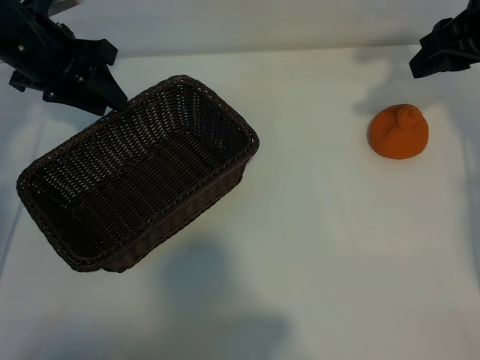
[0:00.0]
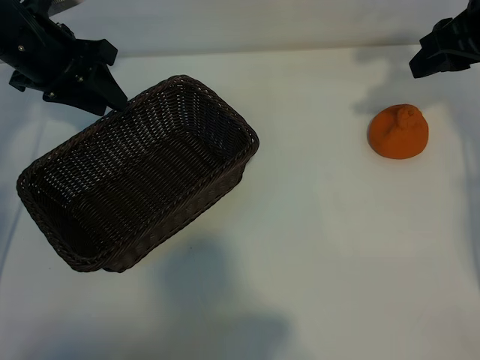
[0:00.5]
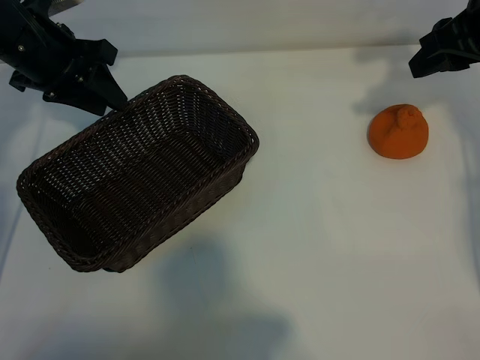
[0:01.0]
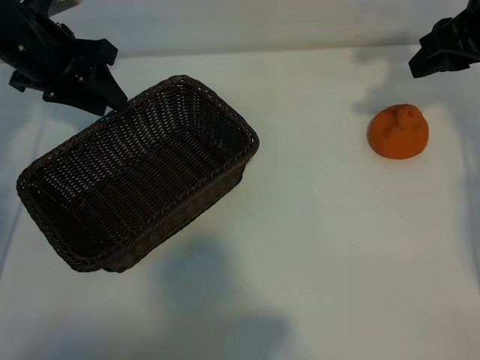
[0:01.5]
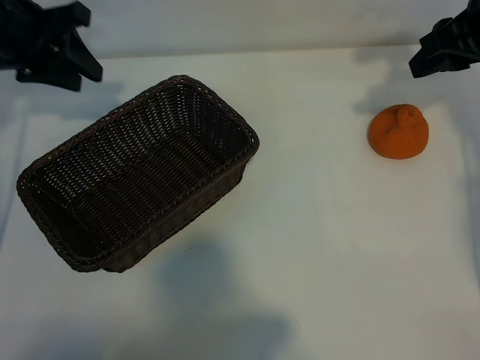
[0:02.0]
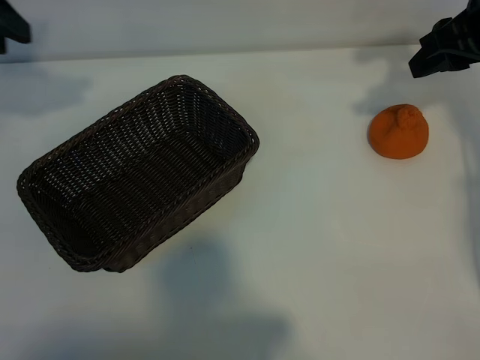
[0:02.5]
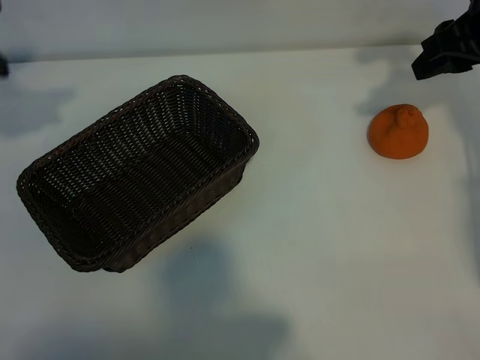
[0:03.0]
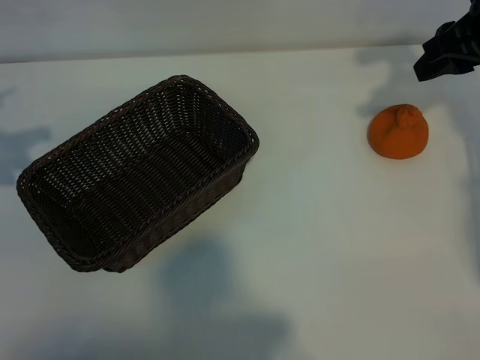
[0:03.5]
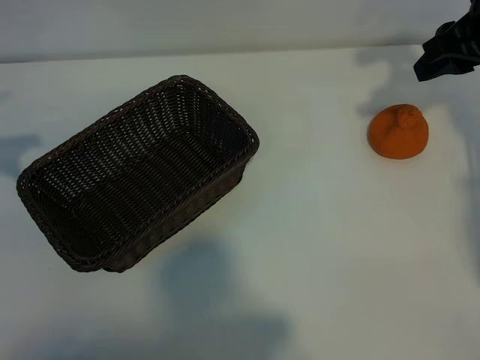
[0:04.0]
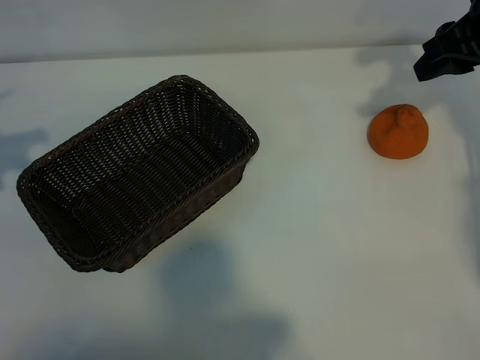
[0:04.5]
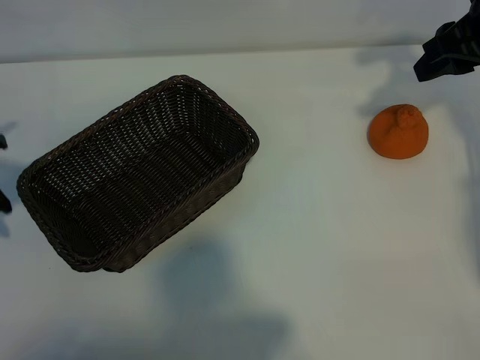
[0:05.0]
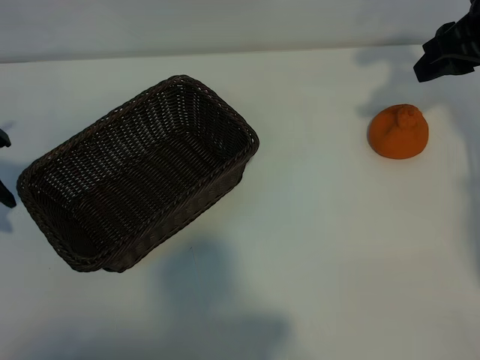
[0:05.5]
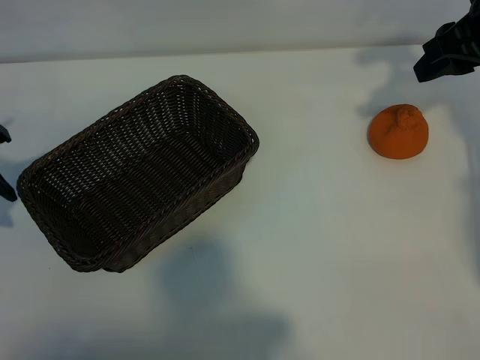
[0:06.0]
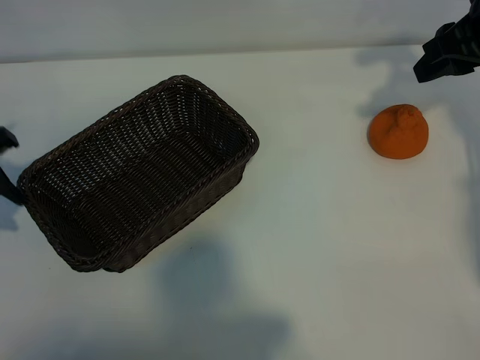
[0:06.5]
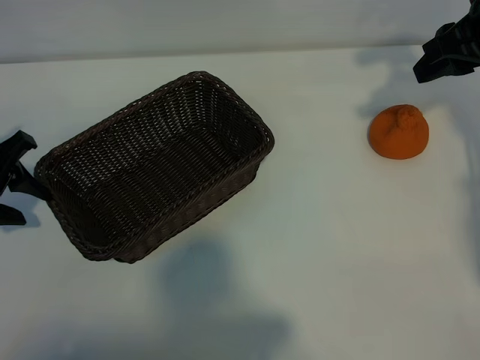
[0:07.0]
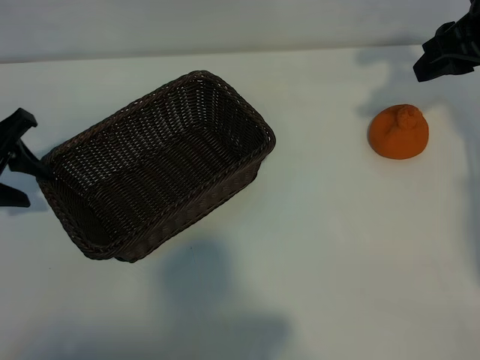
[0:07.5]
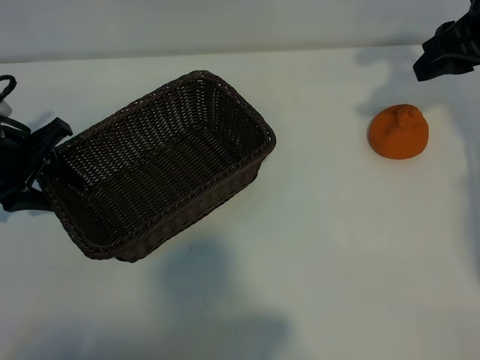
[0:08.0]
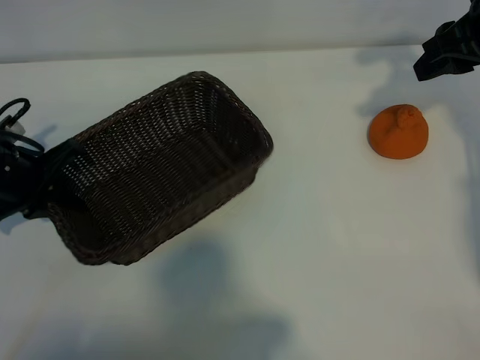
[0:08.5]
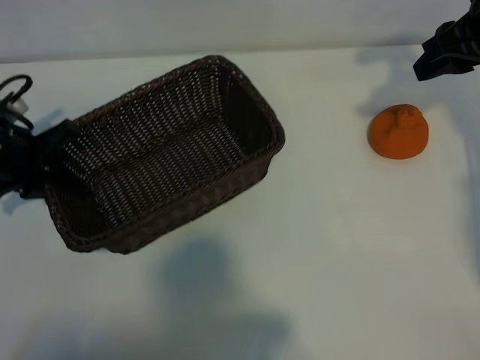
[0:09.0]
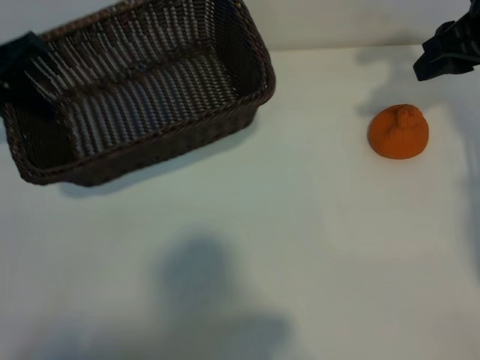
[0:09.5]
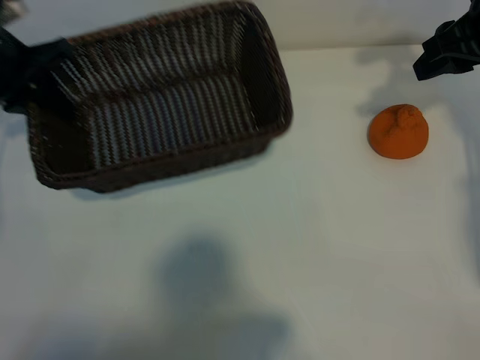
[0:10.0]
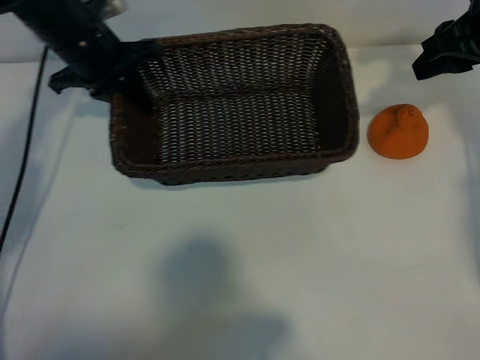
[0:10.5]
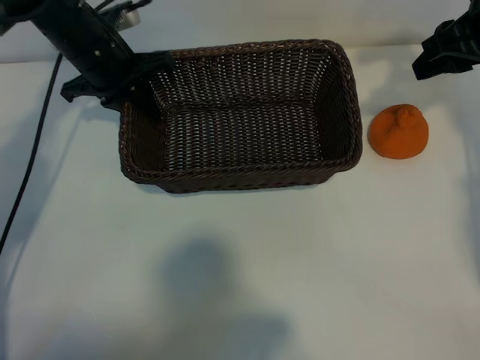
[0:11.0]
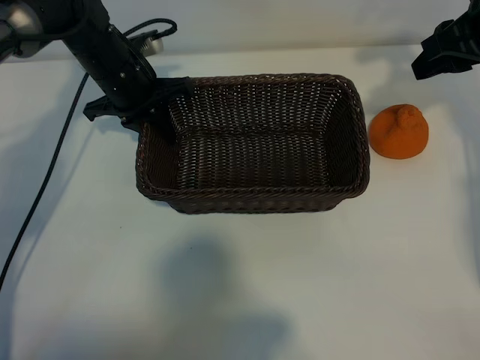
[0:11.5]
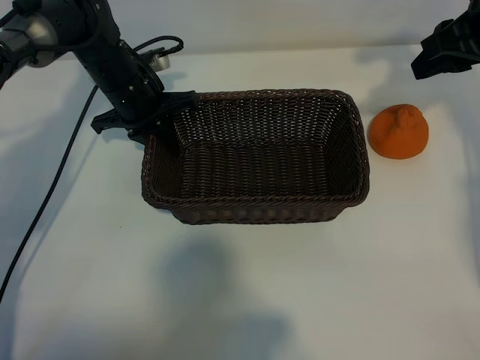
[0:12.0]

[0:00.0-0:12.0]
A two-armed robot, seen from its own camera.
Task of the whole recording: pick up the orange and put it into the basket.
Step, 0:01.5 to 0:08.5: Grasp the basket with left gripper.

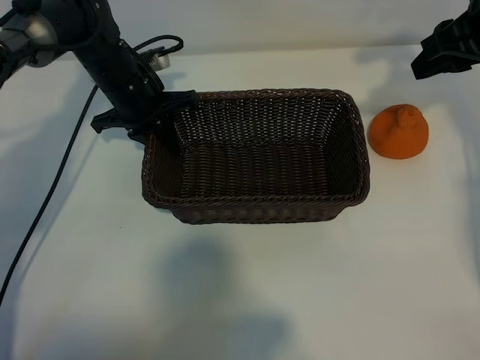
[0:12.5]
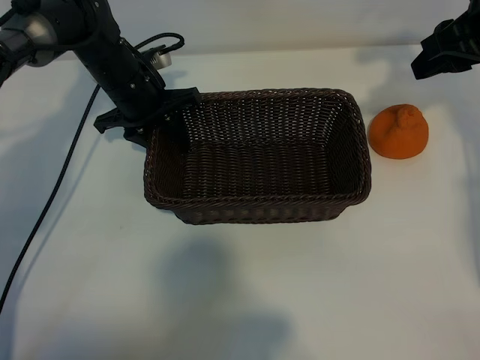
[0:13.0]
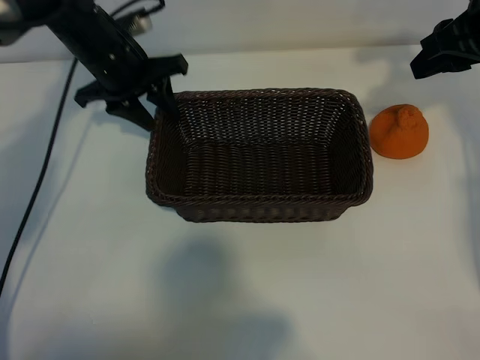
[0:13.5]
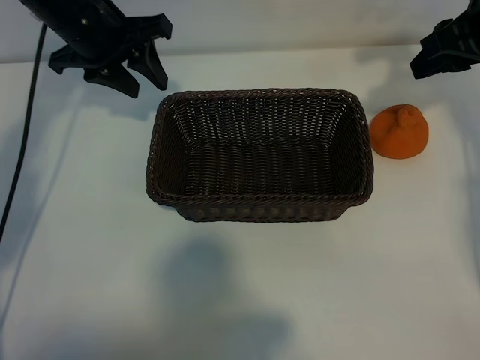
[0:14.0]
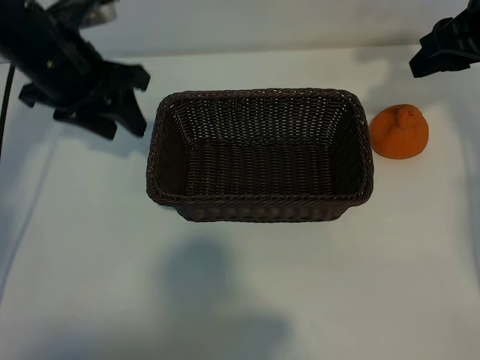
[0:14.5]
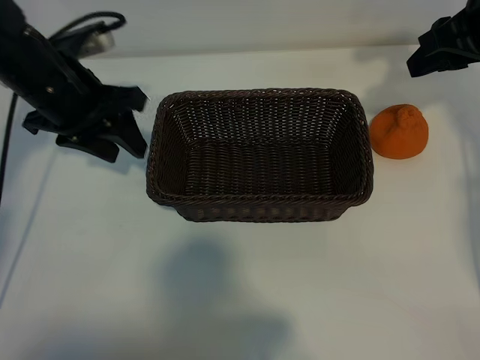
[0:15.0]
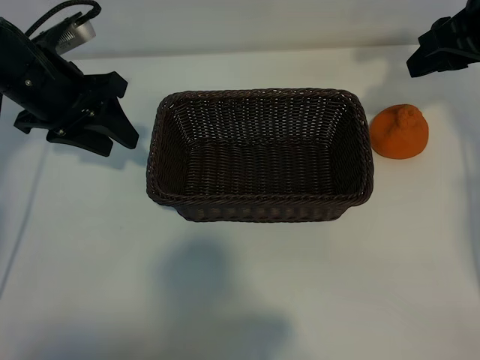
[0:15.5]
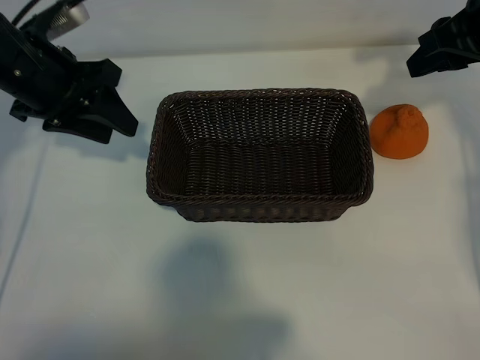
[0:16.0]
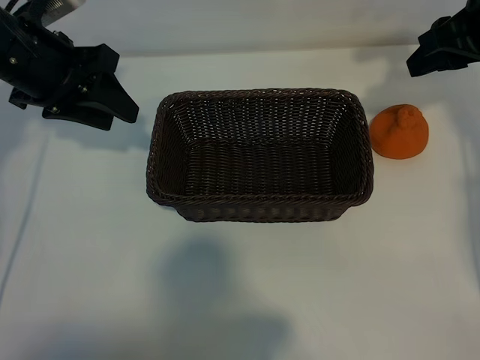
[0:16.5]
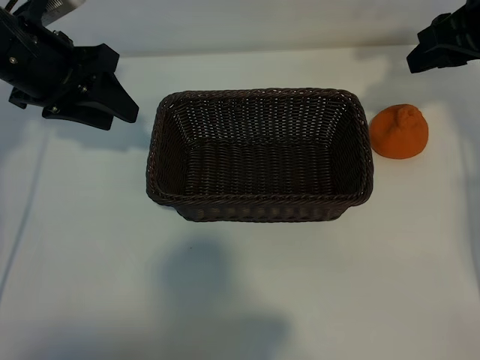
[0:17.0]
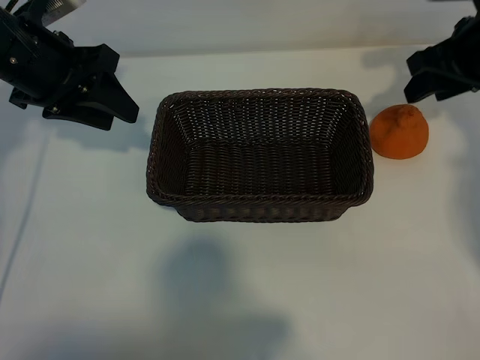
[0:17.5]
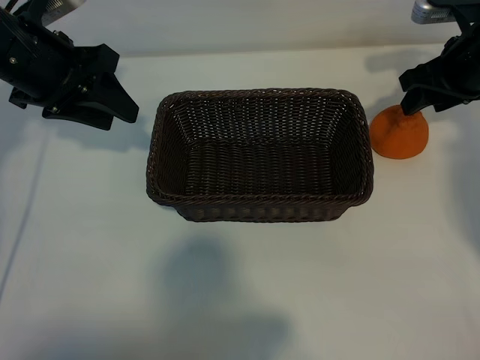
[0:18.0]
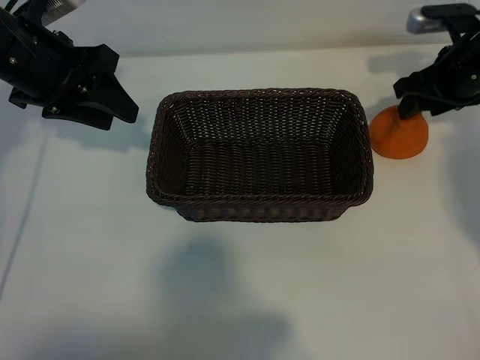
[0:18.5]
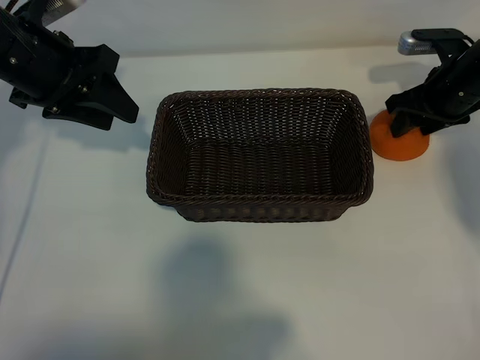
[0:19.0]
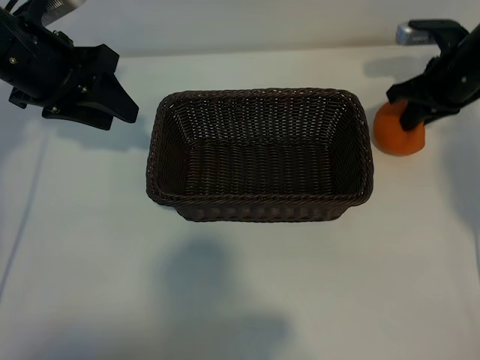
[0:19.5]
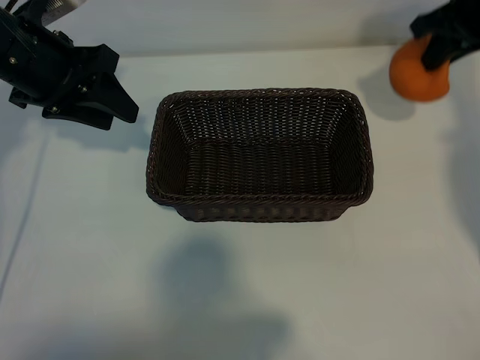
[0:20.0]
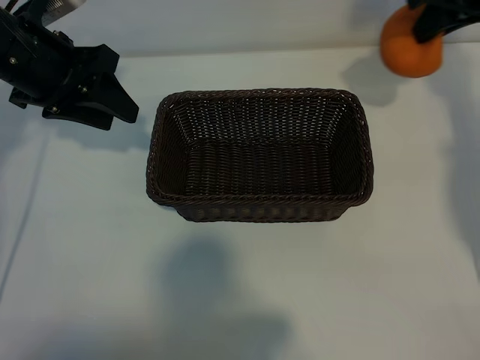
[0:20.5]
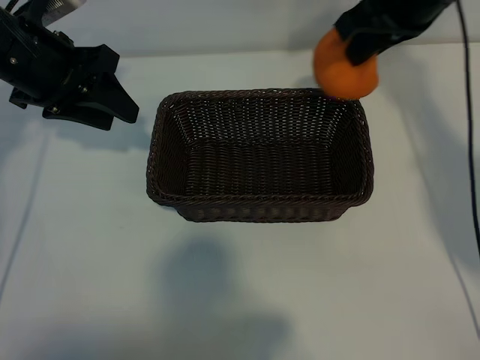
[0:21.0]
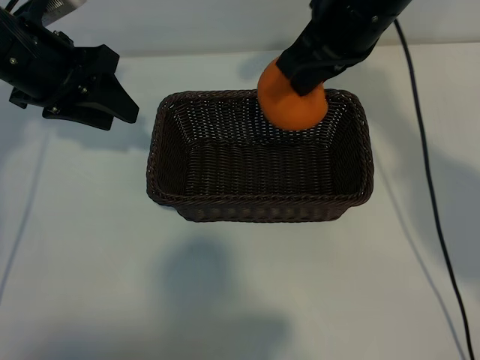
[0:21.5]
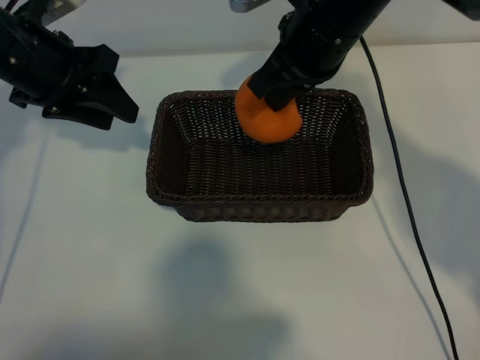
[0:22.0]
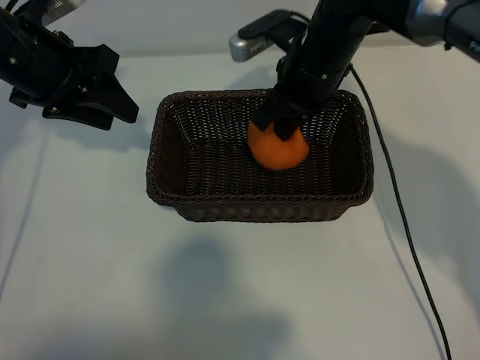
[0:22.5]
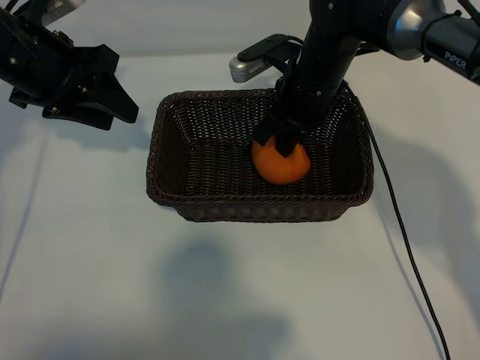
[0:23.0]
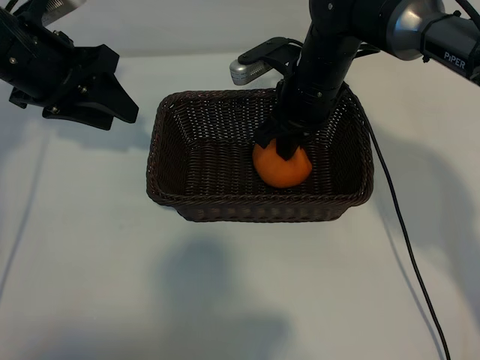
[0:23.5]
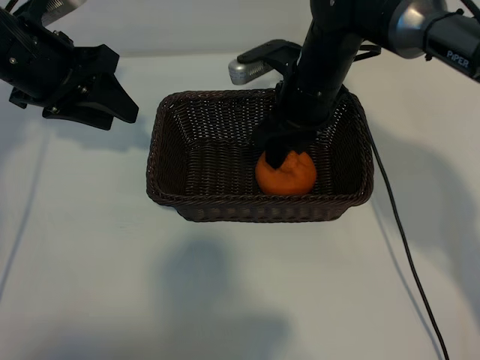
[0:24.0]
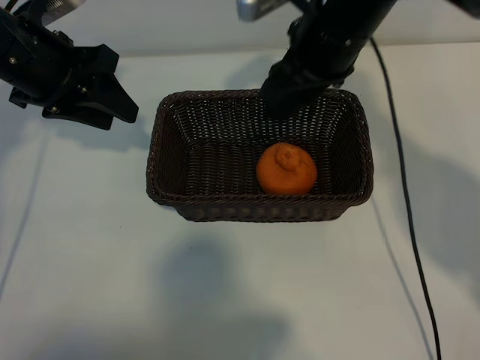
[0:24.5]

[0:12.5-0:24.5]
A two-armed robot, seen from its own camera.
Task of the whole recording: pick up the orange and put it into the basket.
Step, 0:13.5 to 0:19.0: Grasp the orange with right gripper.
Step, 0:19.5 to 0:24.0: Place the orange in the basket with right gripper.

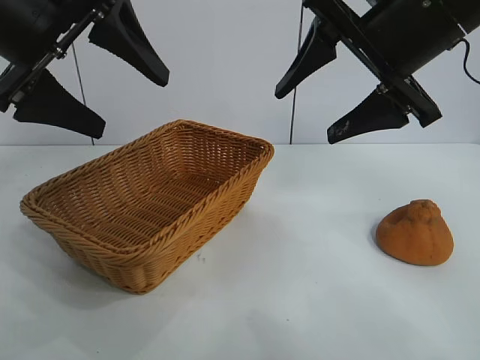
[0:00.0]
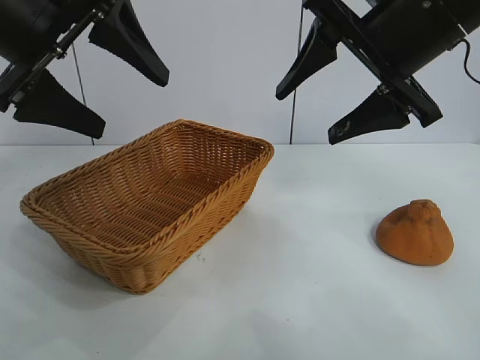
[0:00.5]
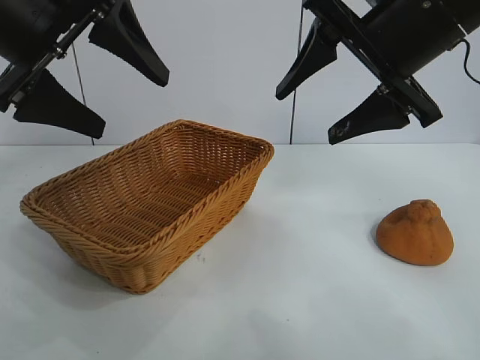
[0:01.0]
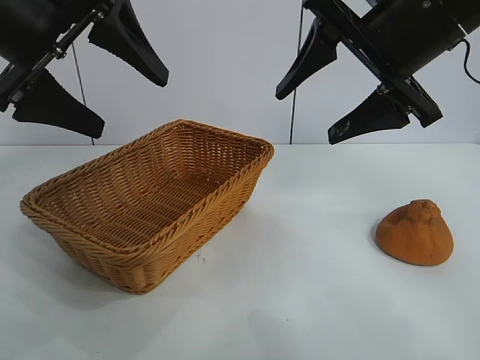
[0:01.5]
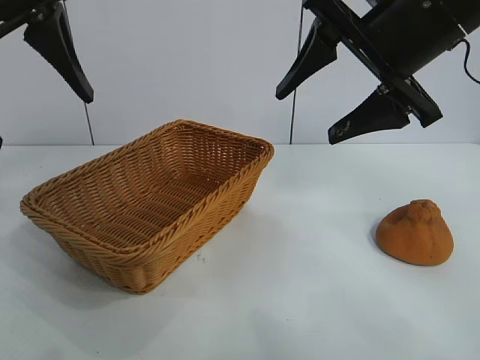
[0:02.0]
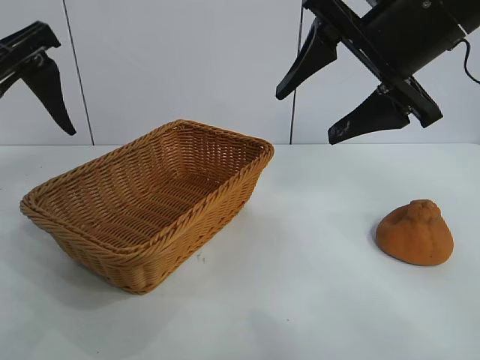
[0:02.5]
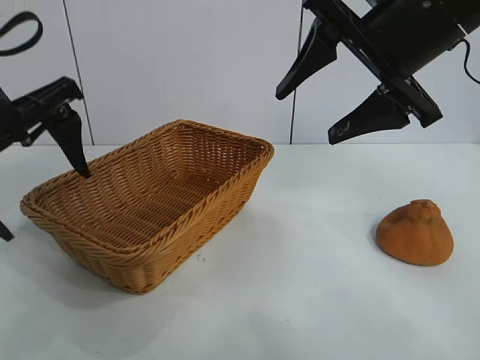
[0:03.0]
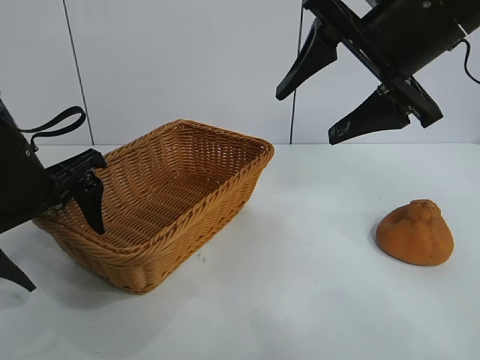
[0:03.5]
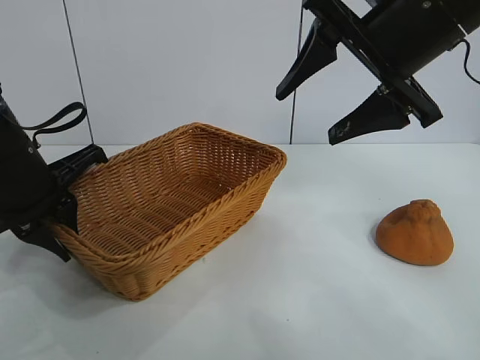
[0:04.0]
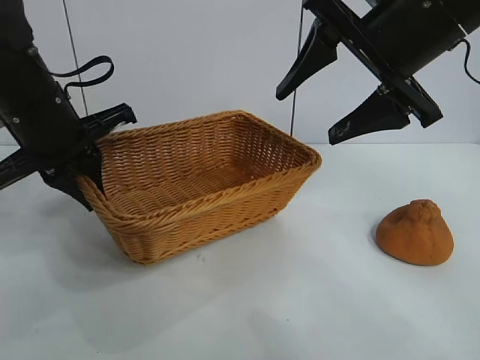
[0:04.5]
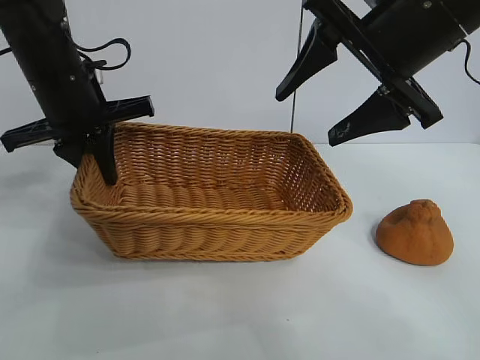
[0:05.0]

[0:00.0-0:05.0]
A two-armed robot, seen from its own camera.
Task of the whole recording: pick up the orange and put it into the basket.
Step, 0:01.5 to 0:03.5: Grasp the basket with left gripper.
